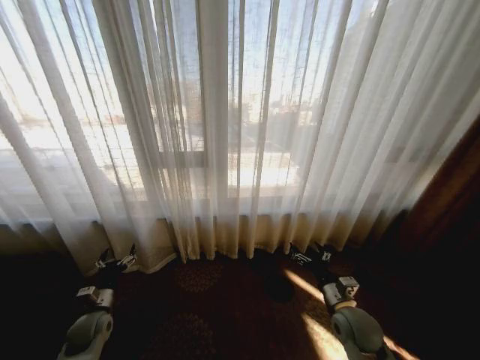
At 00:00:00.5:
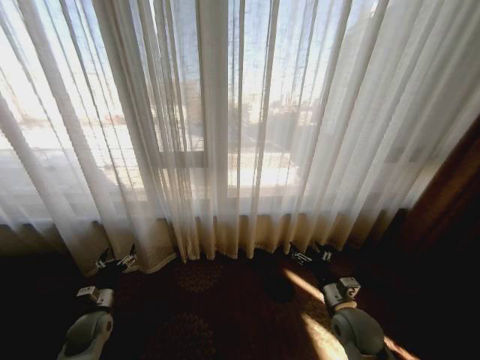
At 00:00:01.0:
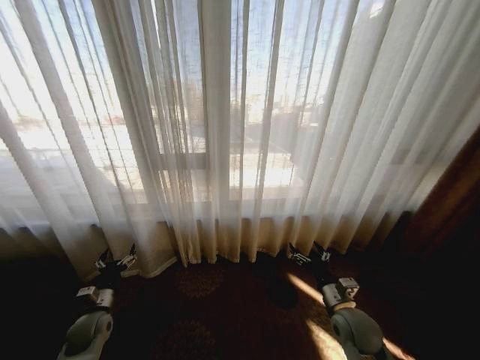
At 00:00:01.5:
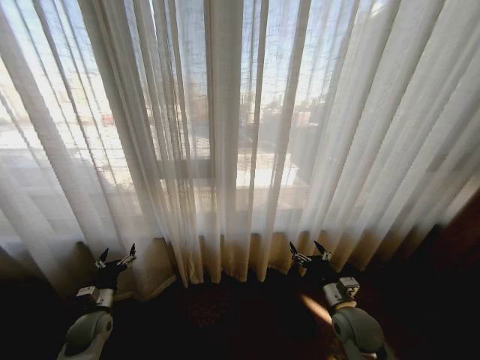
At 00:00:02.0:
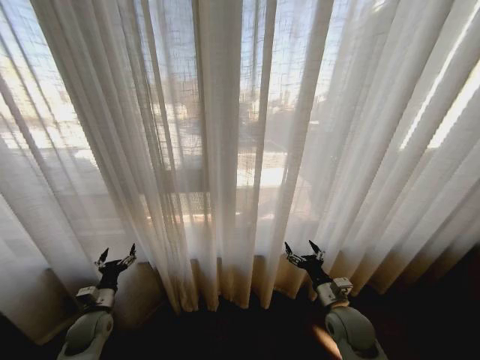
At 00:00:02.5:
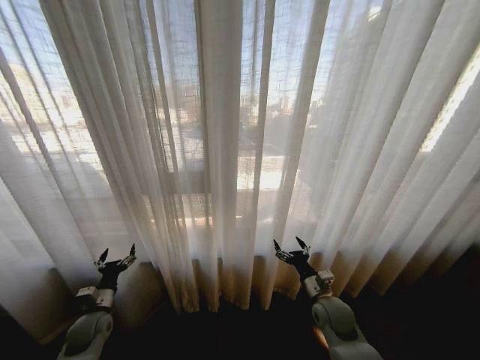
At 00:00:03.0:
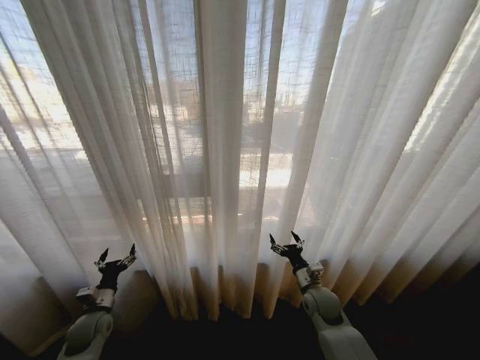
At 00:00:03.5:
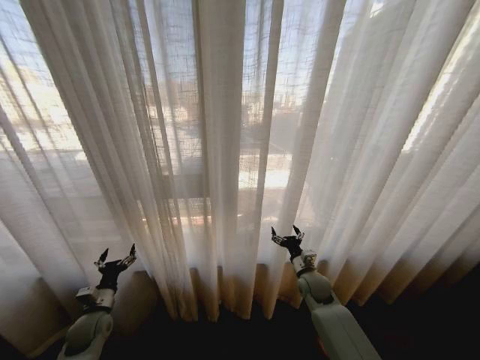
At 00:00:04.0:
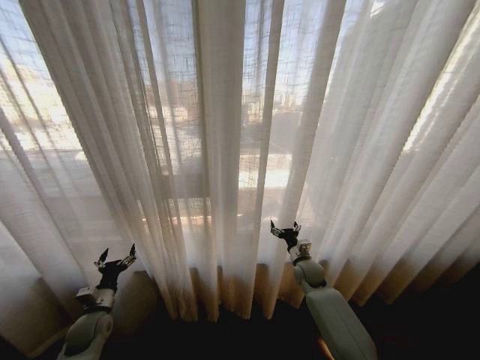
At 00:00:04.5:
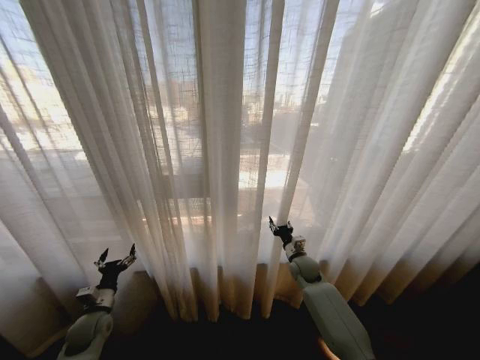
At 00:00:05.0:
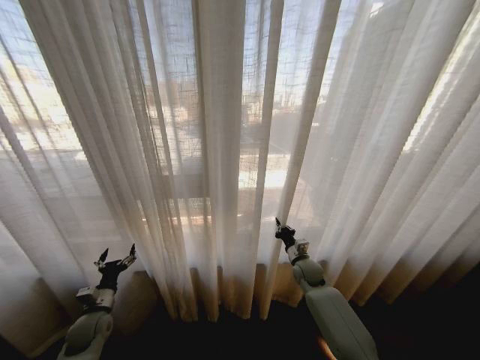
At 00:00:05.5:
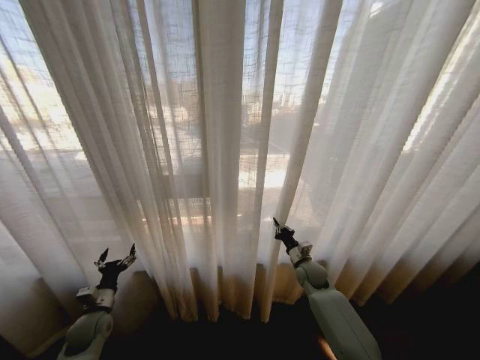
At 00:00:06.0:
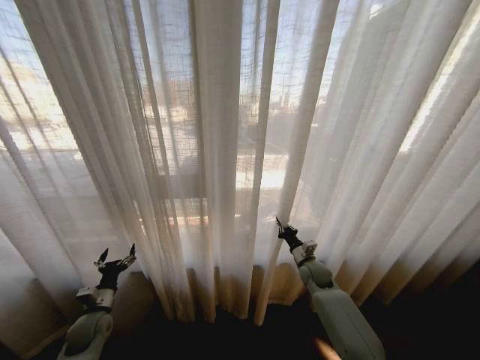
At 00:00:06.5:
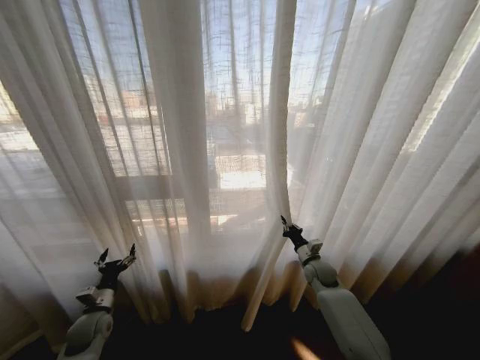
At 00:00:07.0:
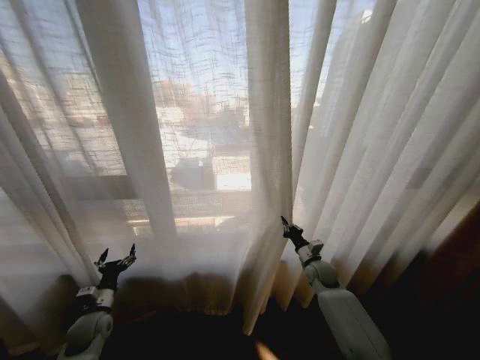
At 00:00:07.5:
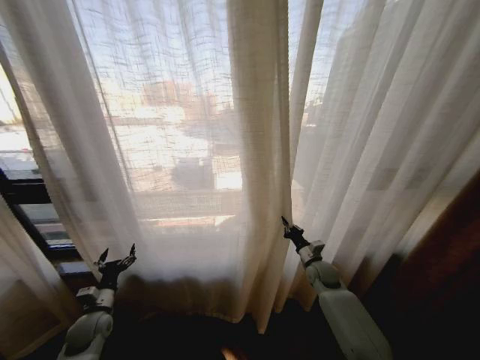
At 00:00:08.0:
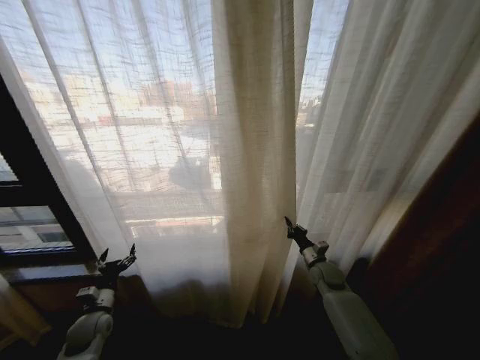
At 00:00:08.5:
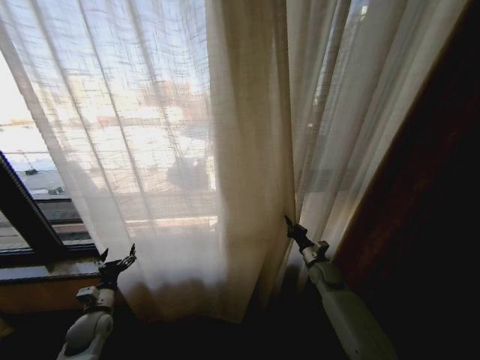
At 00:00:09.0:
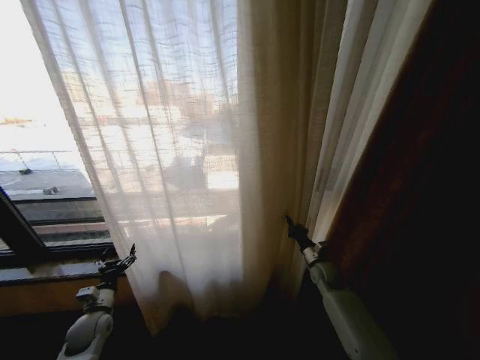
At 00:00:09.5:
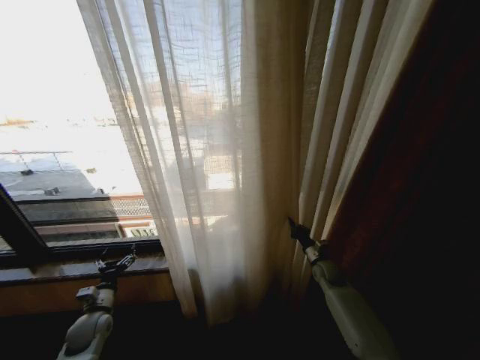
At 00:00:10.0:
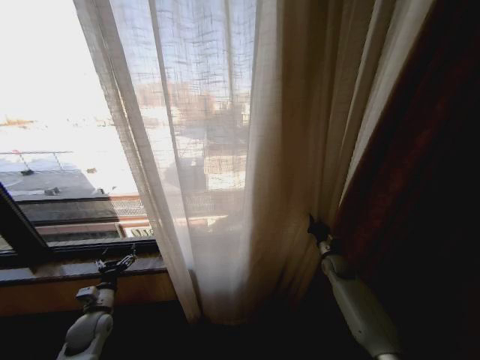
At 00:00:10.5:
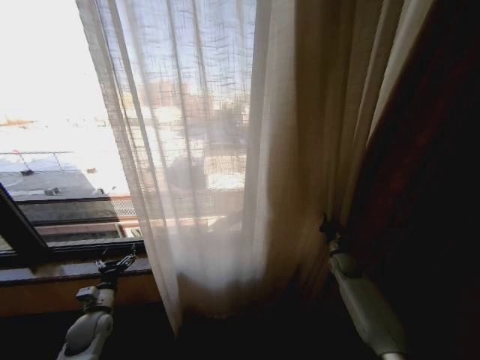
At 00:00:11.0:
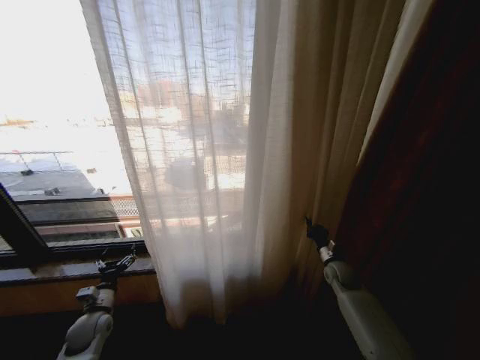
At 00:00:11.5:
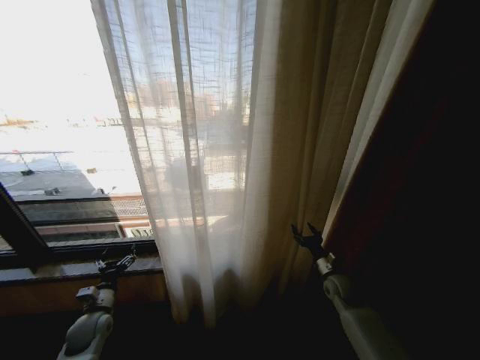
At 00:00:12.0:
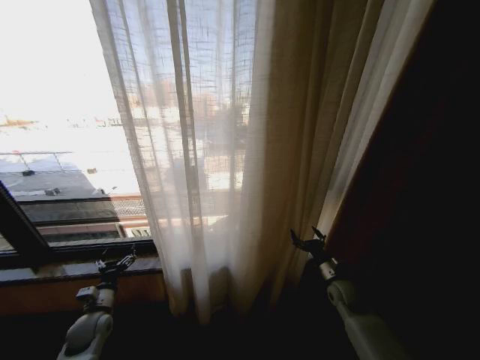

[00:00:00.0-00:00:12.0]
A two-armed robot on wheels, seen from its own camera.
Task of the whole recording: Open the curtains by pulling them apart, changing their state from closed to fully open.
00:00:02.0 to 00:00:04.0: The right gripper moves forward, approximately 15 cm.
00:00:04.0 to 00:00:06.0: The right gripper closes.
00:00:08.0 to 00:00:10.0: The right gripper shifts approximately 5 cm to the right.
00:00:10.0 to 00:00:12.0: The right gripper is displaced backward by roughly 10 cm, and opens.

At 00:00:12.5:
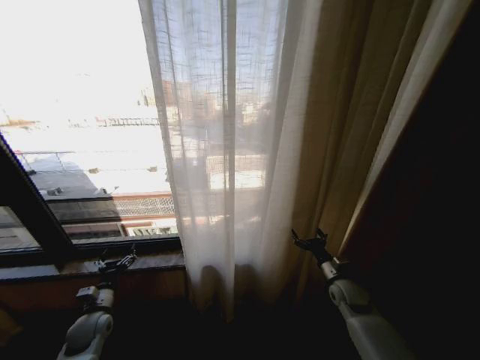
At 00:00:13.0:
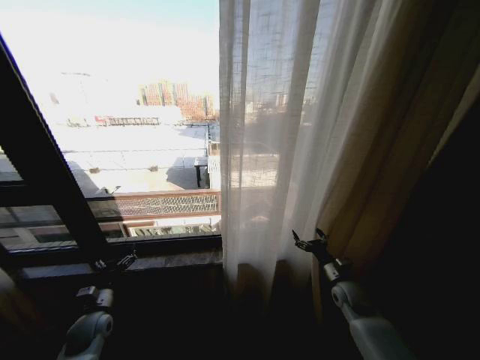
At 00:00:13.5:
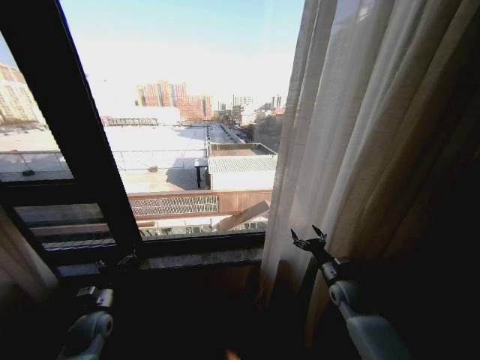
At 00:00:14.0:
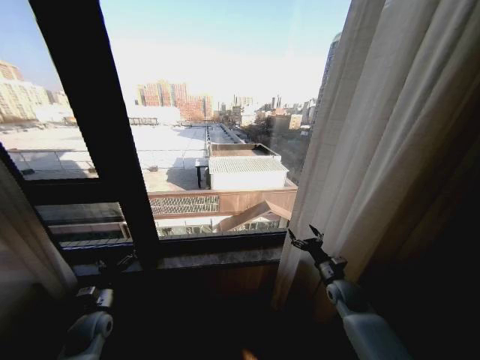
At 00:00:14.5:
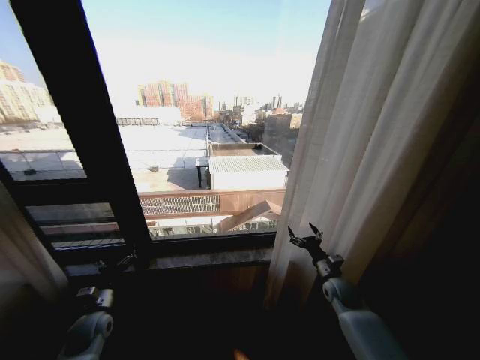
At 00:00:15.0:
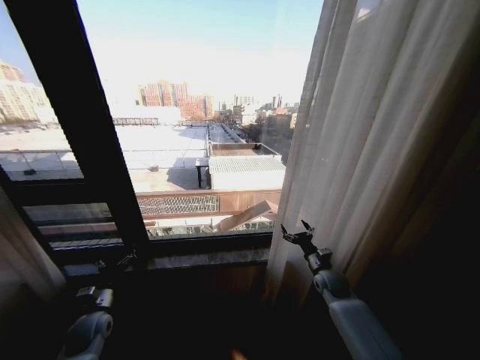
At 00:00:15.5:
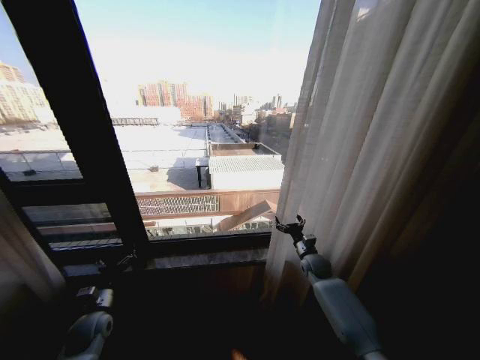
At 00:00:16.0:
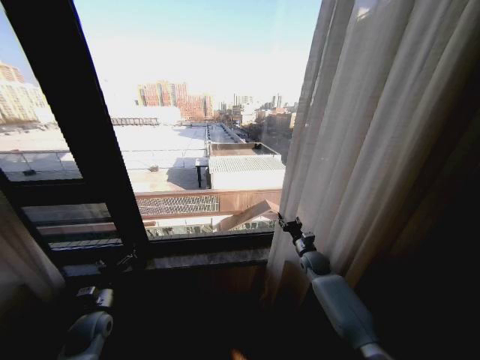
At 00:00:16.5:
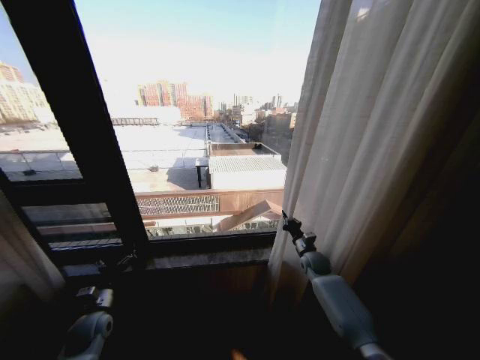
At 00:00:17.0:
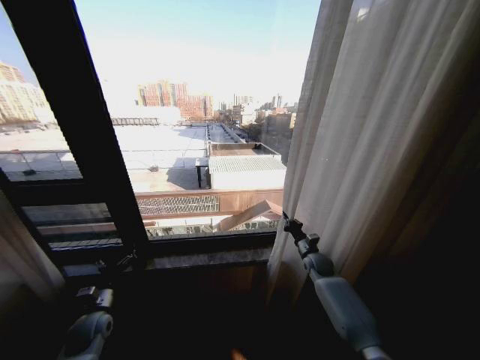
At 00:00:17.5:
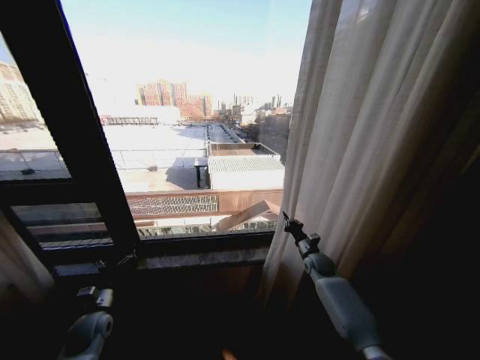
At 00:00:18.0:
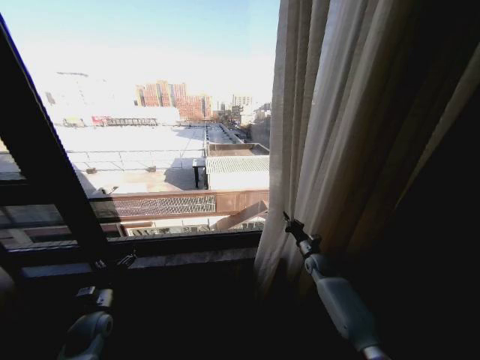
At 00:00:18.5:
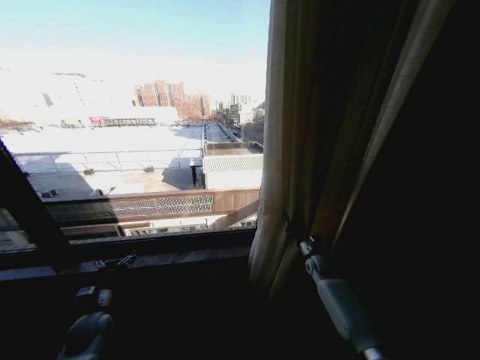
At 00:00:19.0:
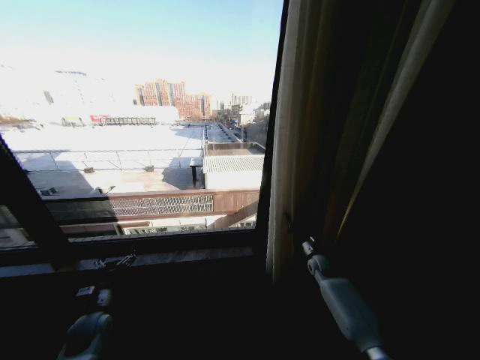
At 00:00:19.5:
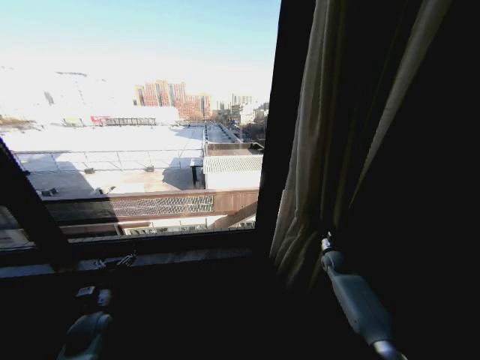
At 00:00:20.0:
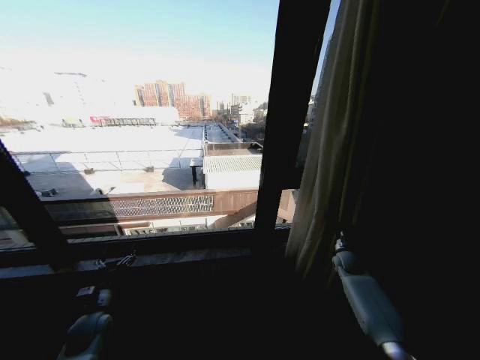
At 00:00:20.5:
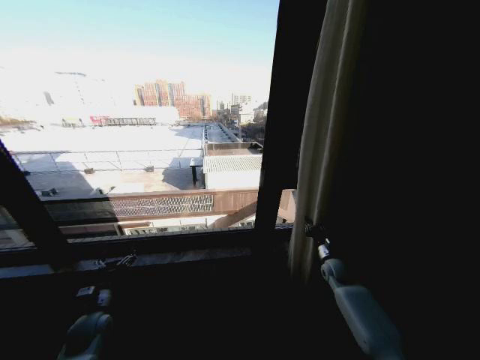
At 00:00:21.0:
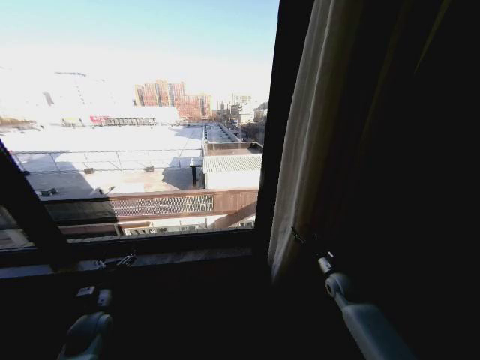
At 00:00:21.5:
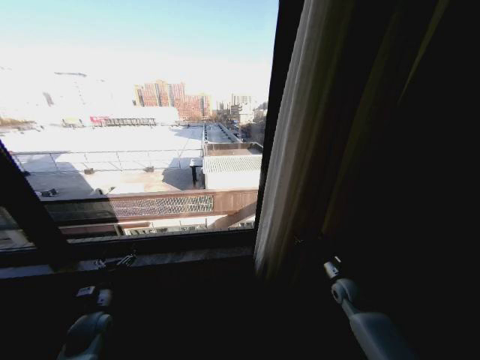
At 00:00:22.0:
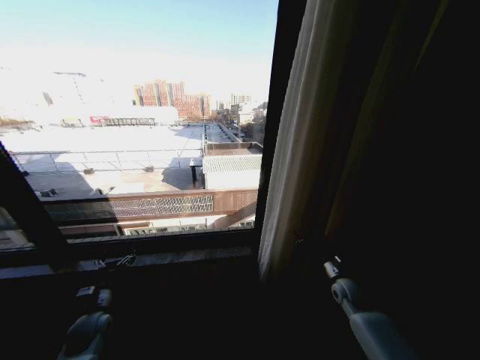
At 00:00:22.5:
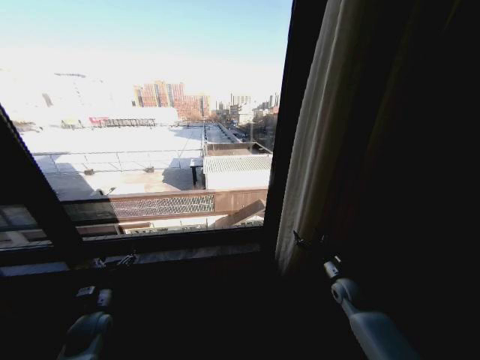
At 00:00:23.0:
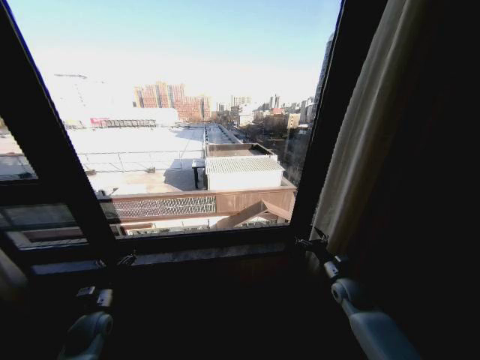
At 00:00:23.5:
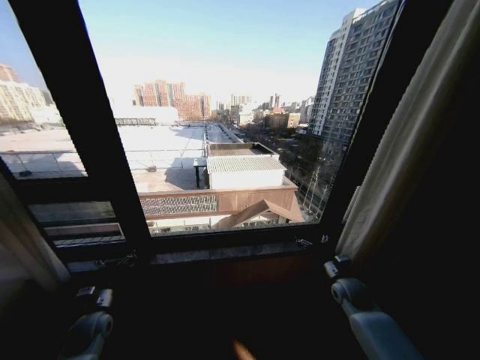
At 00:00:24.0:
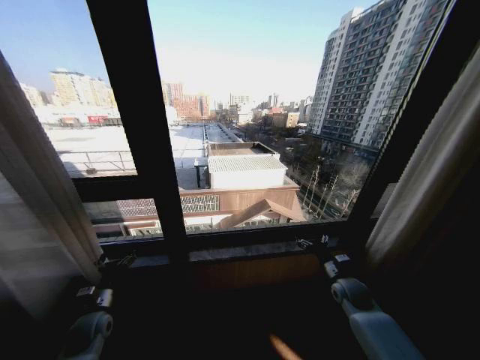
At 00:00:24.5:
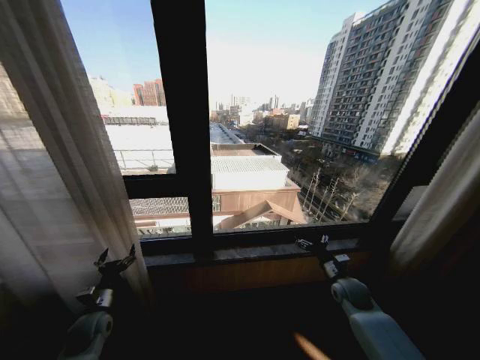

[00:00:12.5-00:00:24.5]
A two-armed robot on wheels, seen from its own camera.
Task of the whole recording: Open the curtains by pulling them apart, changing their state from closed to fully open.
00:00:14.5 to 00:00:16.5: The right gripper travels forward by approximately 10 cm, and closes.
00:00:20.5 to 00:00:22.5: The right gripper heads backward, covering approximately 5 cm, and opens.

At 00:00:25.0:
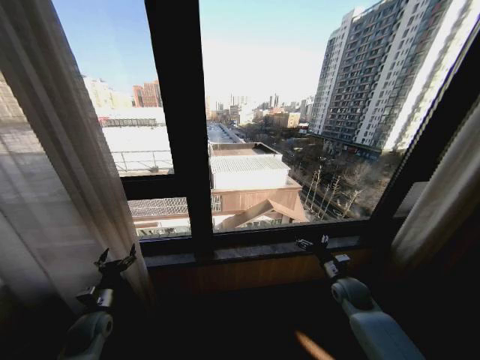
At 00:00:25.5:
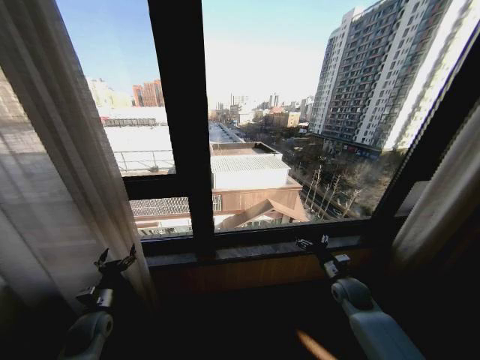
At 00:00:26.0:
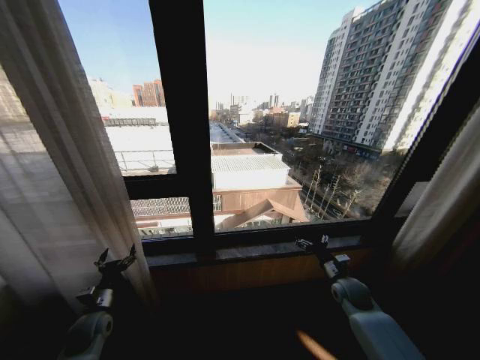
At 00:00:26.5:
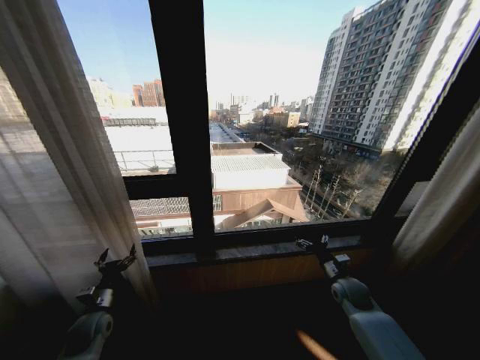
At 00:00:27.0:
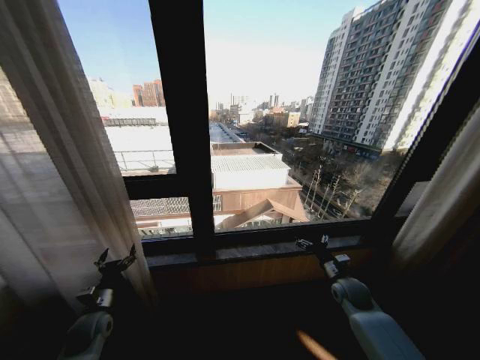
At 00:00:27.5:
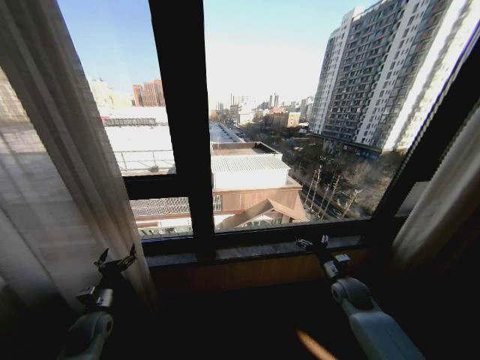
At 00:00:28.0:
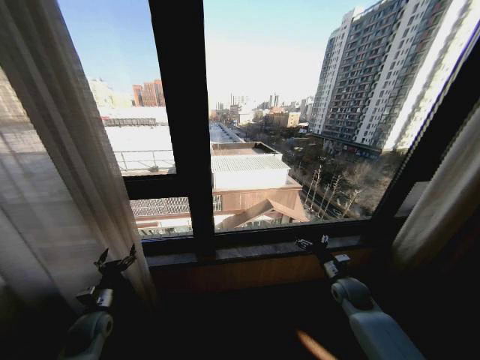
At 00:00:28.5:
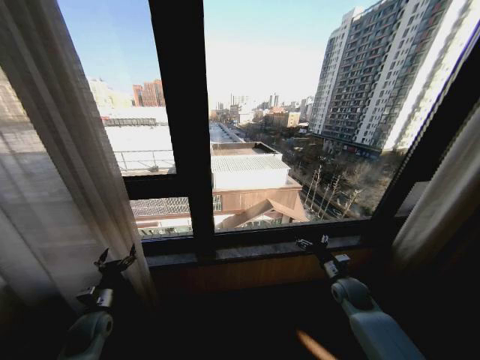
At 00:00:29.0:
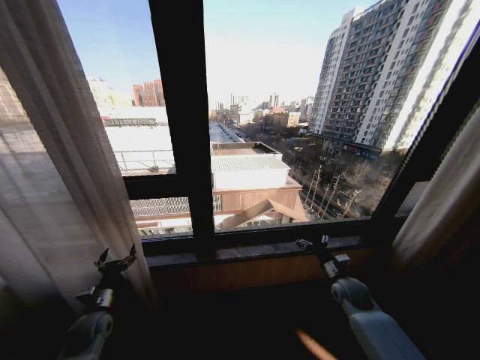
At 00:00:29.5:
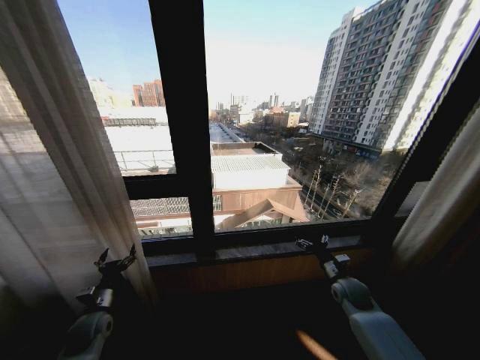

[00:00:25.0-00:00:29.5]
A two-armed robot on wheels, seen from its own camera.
Task of the whole recording: Open the curtains by pulling them apart, changing their state from closed to fully open.
00:00:25.0 to 00:00:29.5: The two grippers keep their place.
